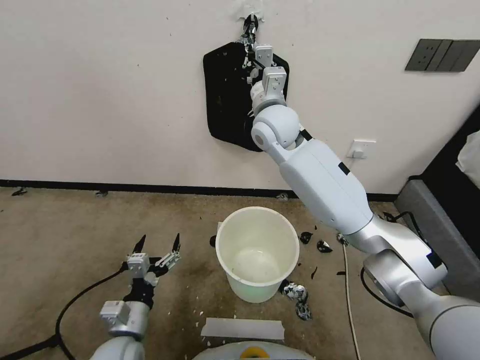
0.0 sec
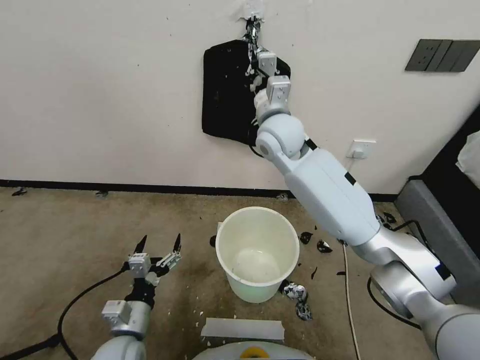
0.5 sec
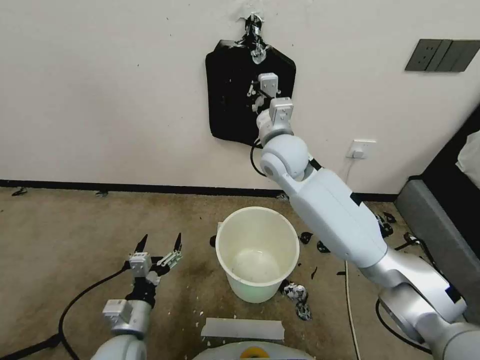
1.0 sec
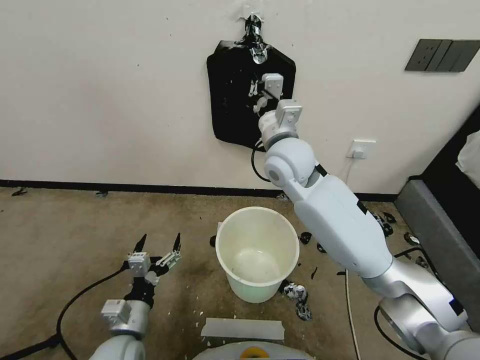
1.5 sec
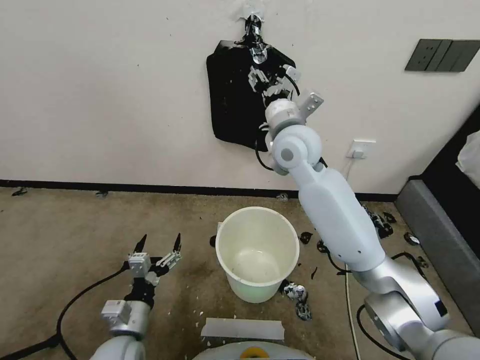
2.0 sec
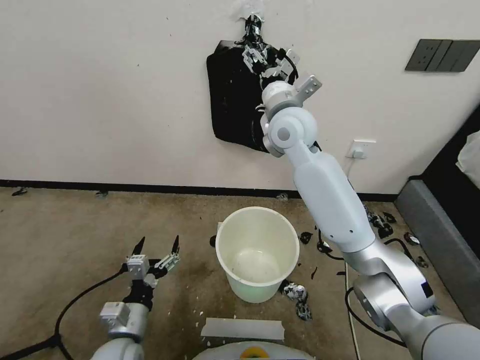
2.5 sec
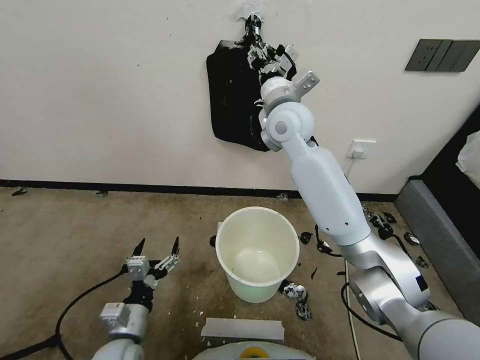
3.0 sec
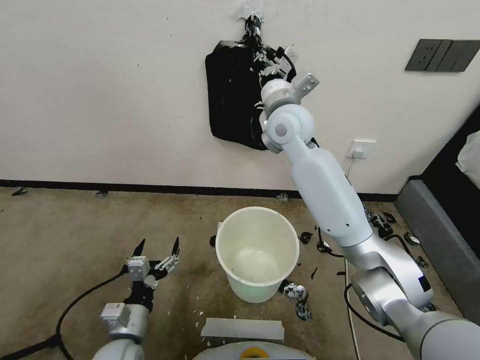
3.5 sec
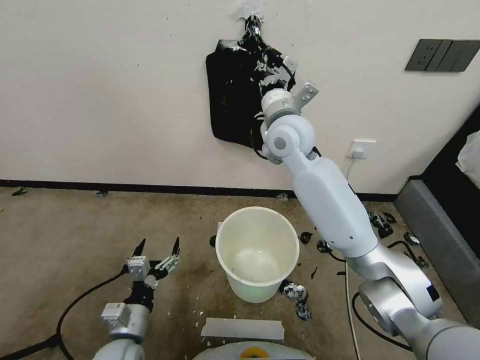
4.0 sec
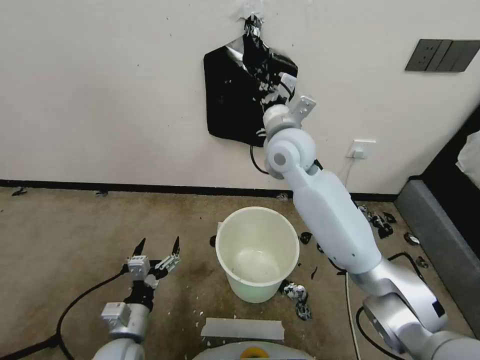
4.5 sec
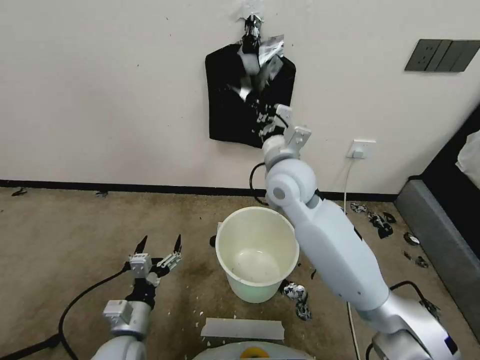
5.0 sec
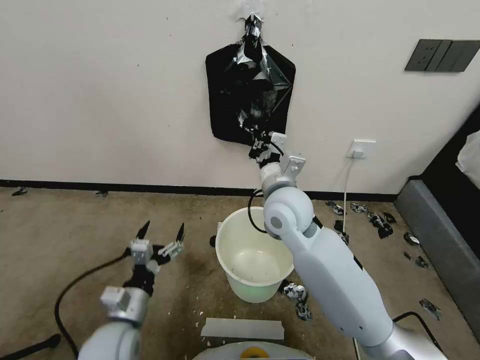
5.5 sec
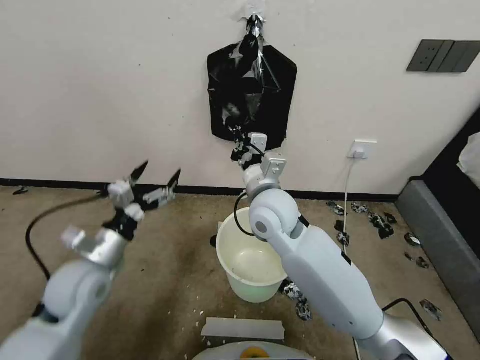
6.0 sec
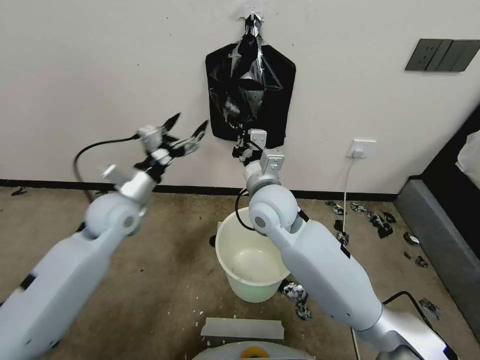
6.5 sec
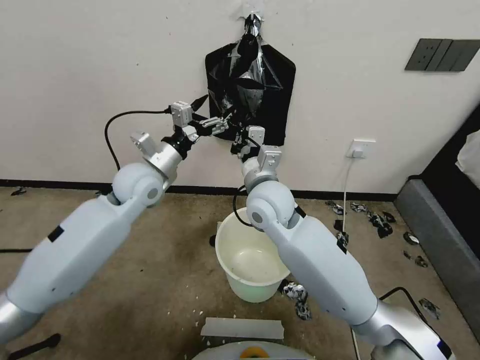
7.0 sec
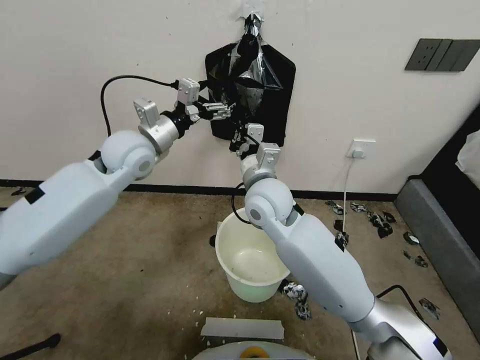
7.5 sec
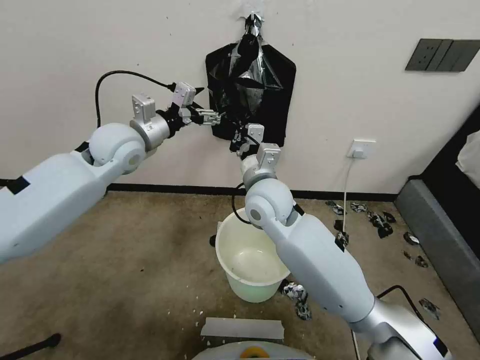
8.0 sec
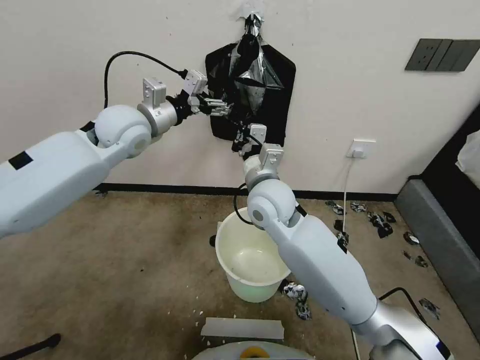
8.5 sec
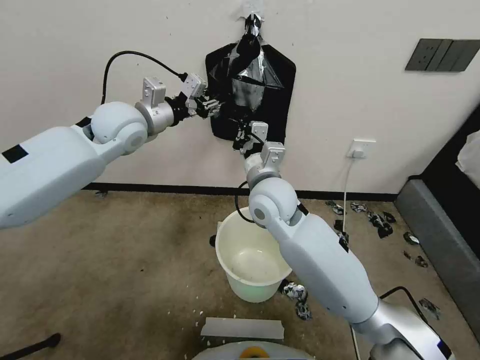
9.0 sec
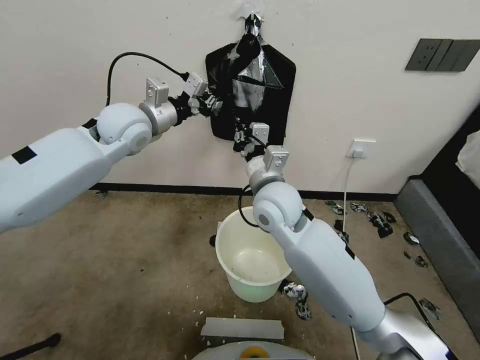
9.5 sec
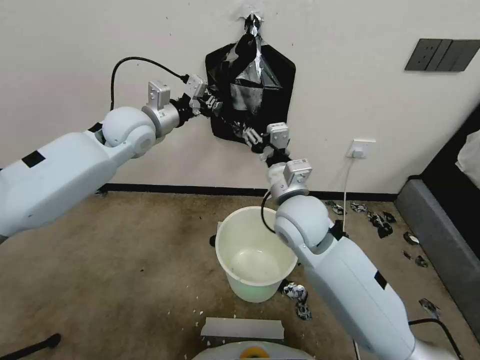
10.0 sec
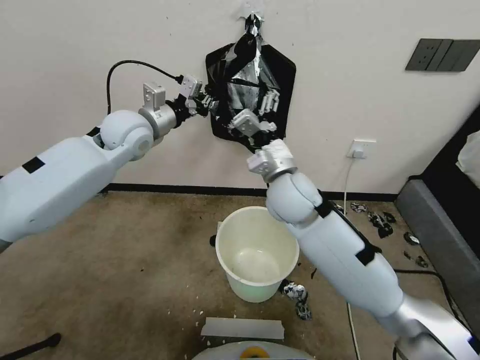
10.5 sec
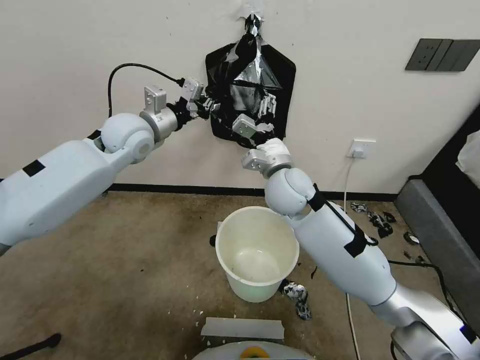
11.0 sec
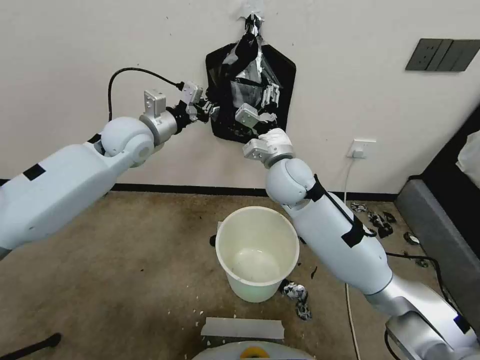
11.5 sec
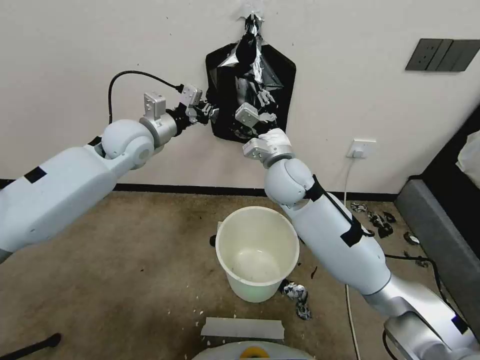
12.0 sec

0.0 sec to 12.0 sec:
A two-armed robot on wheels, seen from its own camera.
Task of the whole recording: Place a trash bag onto the trash bin.
0.0 sec to 2.0 sec: The right gripper goes approximately 5 cm backward, and opens up.
2.0 sec to 4.0 sec: The right gripper closes.
4.0 sec to 6.0 sec: The left gripper moves upward, forward and to the left, some 15 cm. The right gripper goes roughly 15 cm backward and downward.
6.0 sec to 8.0 sec: The left gripper shifts some 30 cm forward and upward.
8.0 sec to 10.0 sec: The left gripper closes its fingers. The right gripper travels to the right by roughly 5 cm, and opens its fingers.
10.0 sec to 12.0 sec: The right gripper shifts roughly 10 cm forward.

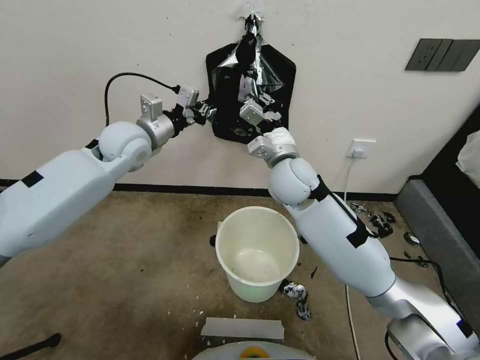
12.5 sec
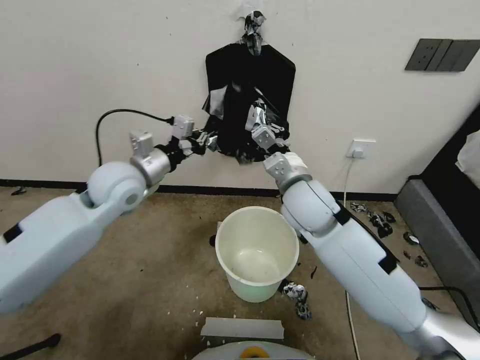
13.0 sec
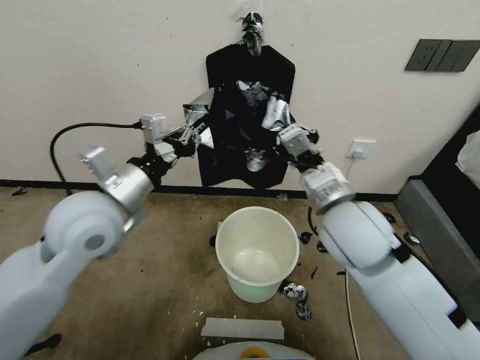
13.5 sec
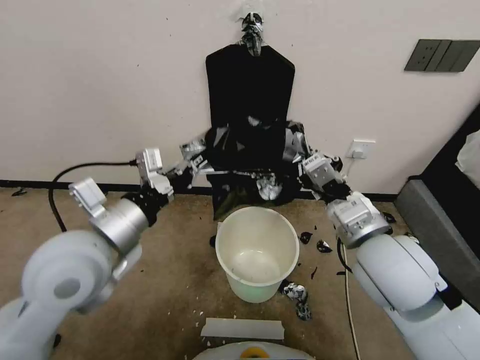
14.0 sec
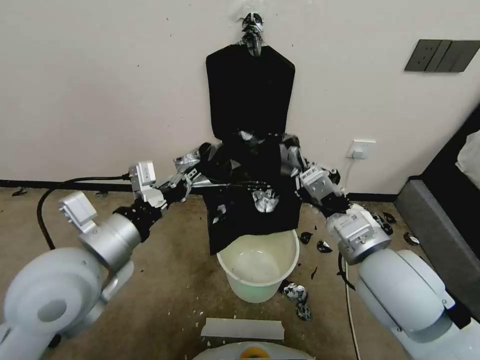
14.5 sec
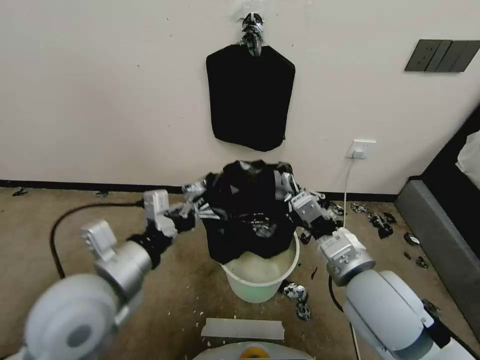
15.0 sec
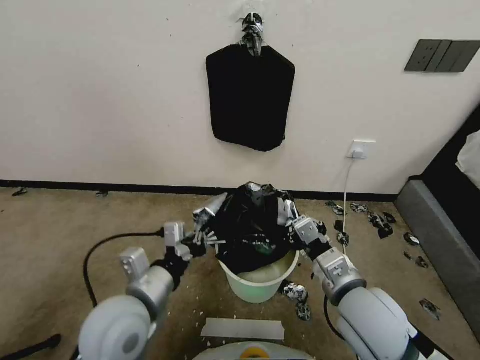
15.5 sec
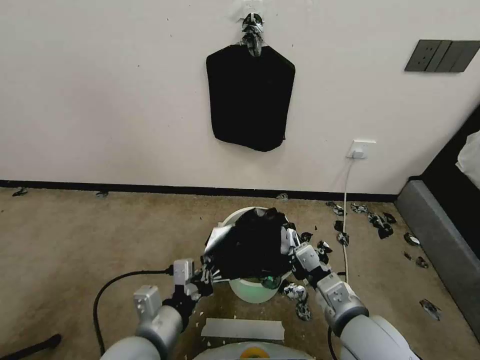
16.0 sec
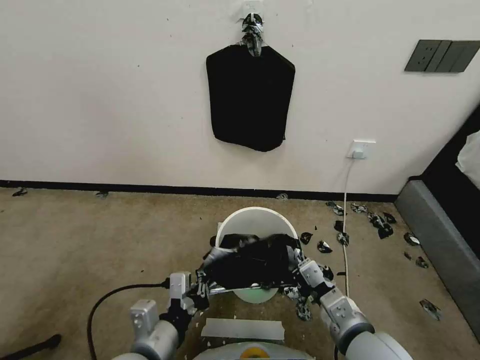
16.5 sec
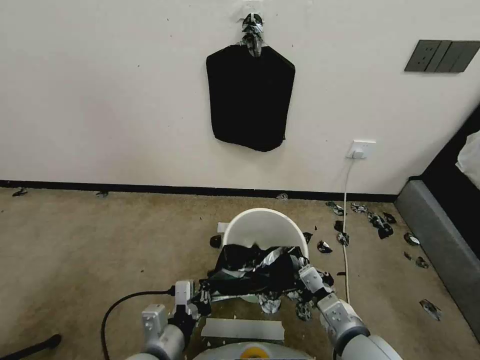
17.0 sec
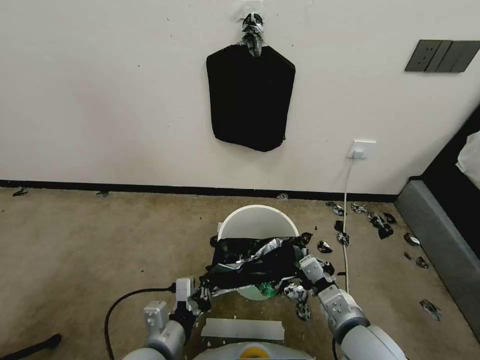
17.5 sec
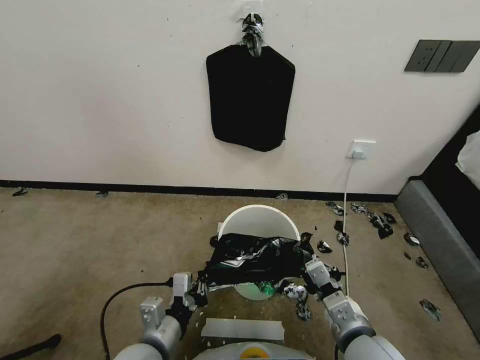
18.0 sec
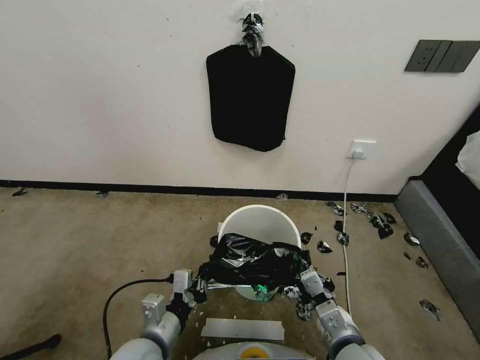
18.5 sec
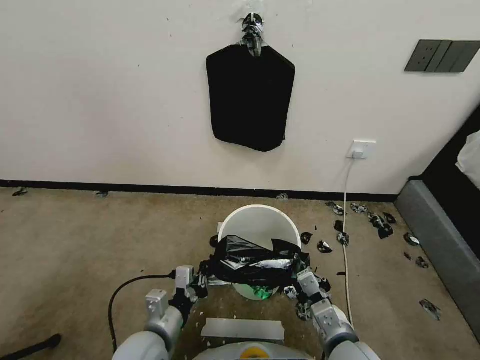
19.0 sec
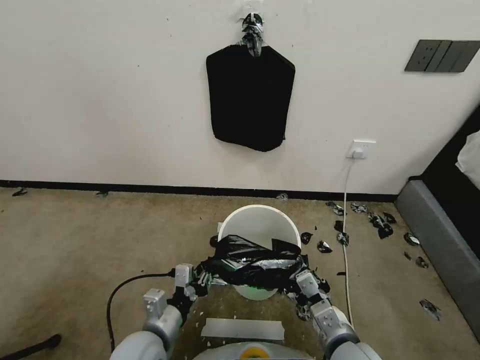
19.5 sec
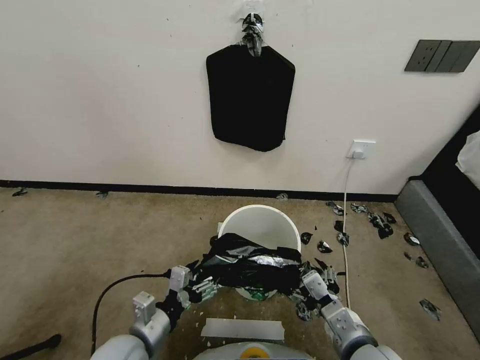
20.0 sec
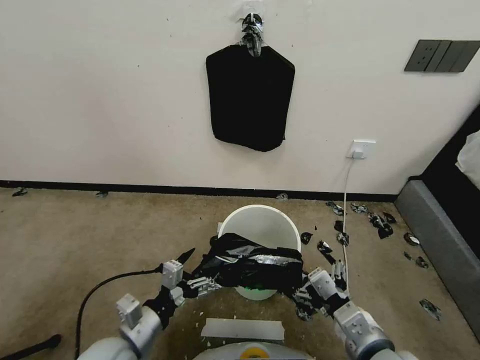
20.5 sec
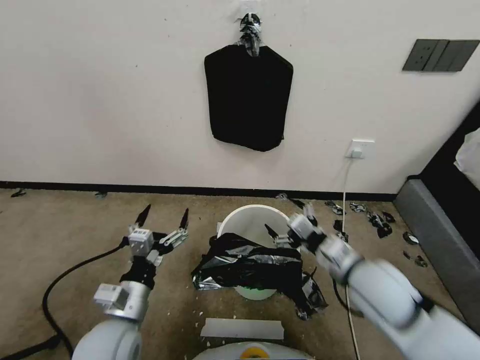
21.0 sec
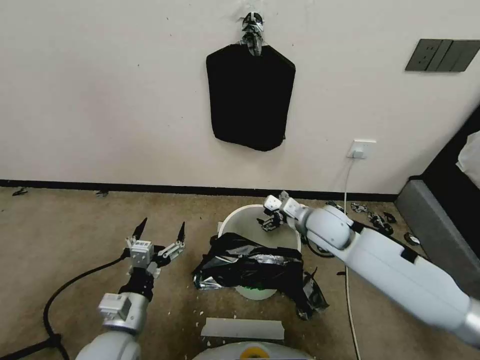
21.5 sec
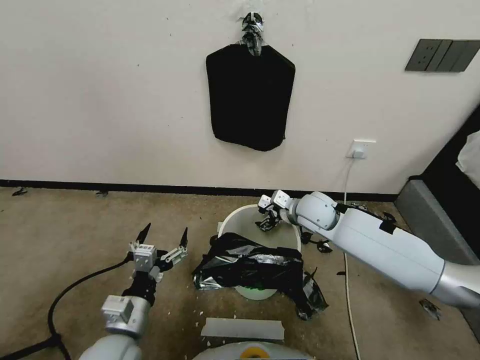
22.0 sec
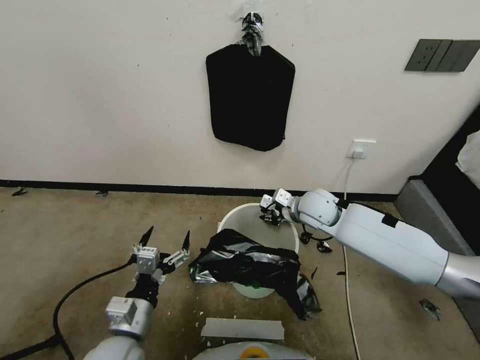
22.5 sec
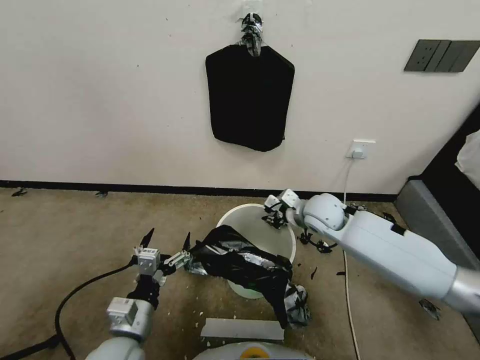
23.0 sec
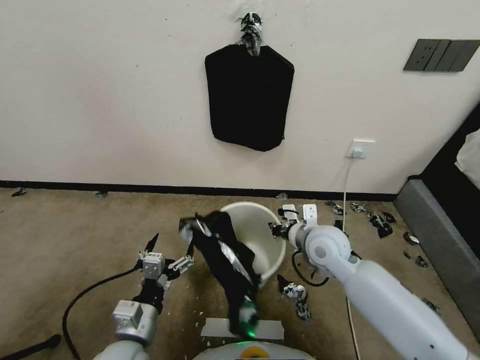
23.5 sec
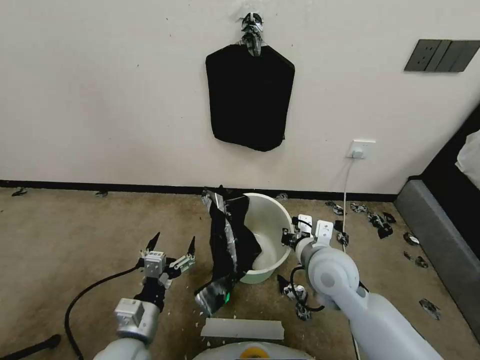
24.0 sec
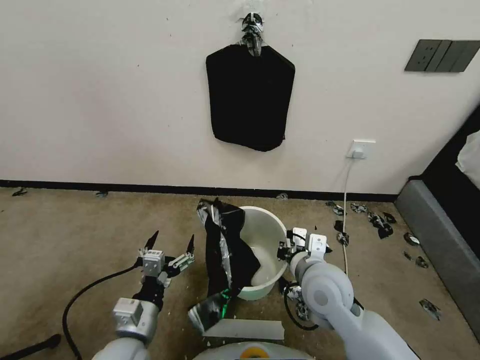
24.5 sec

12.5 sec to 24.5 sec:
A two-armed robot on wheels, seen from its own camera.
Task of the whole recording: Place a trash bag onto the trash bin.
12.5 sec to 14.5 sec: The left gripper is displaced backward by roughly 25 cm. The right gripper shifts some 25 cm backward and to the right.
14.5 sec to 16.5 sec: Both grippers move downward and backward, some 20 cm.
16.5 sec to 18.5 sec: The two grippers go some 5 cm downward.
18.5 sec to 20.5 sec: The right gripper moves upward, about 10 cm, and opens its fingers, while the left gripper moves about 5 cm, and opens.
20.5 sec to 22.5 sec: The right gripper shifts about 35 cm forward, and closes up.
22.5 sec to 24.5 sec: The right gripper moves backward, approximately 20 cm.

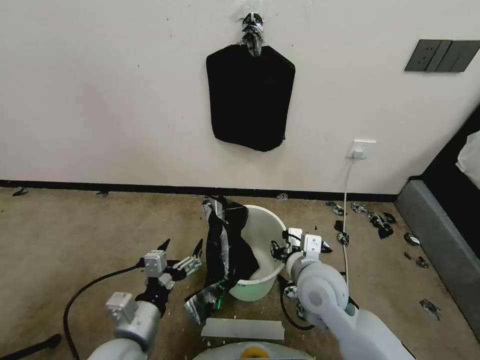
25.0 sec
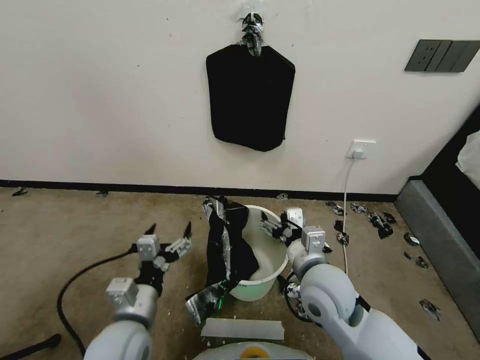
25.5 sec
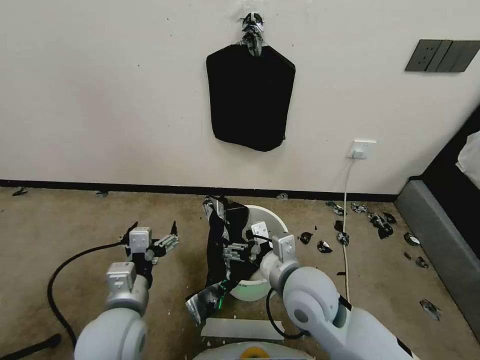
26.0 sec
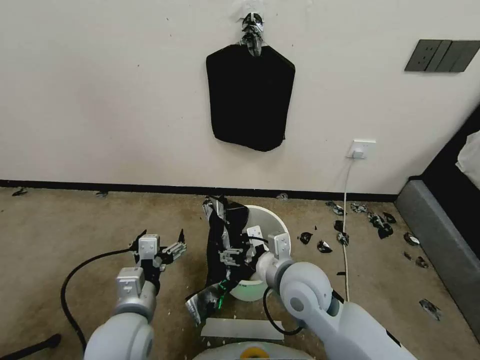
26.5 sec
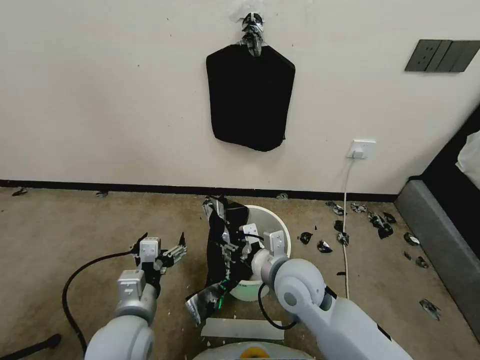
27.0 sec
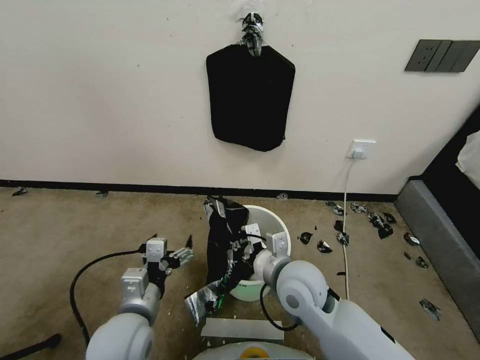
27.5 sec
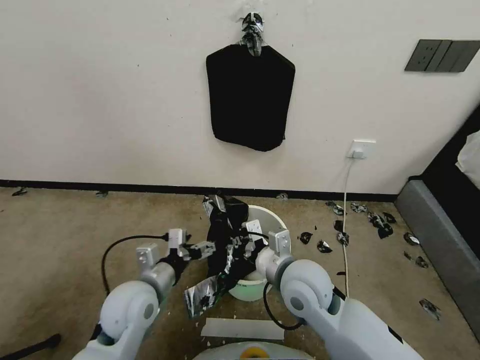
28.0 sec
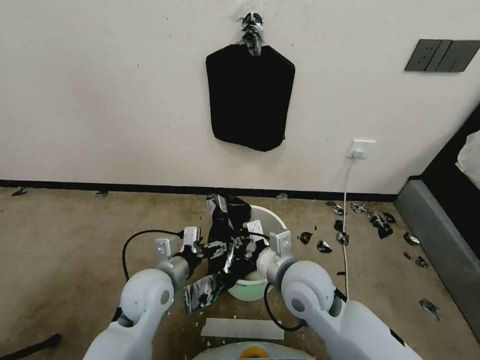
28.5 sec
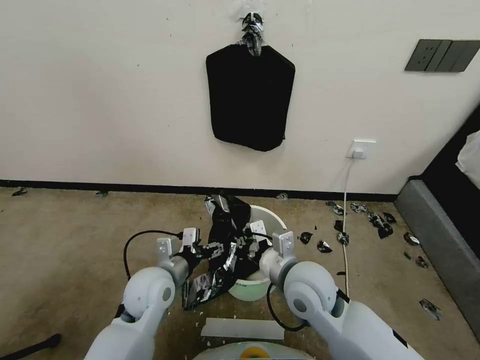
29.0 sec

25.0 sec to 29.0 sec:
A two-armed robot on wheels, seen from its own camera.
Task of the whole recording: Place a trash bag onto the trash bin.
25.0 sec to 27.0 sec: The right gripper opens, then closes once more.
27.0 sec to 29.0 sec: The right gripper closes. The left gripper is displaced forward by about 10 cm.
